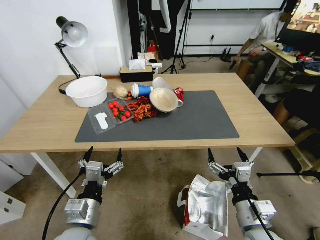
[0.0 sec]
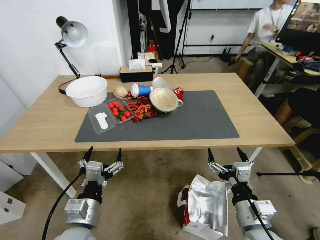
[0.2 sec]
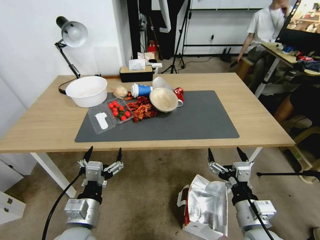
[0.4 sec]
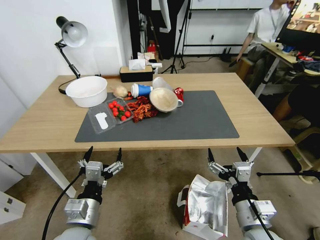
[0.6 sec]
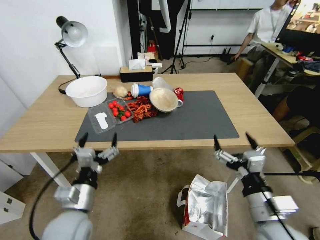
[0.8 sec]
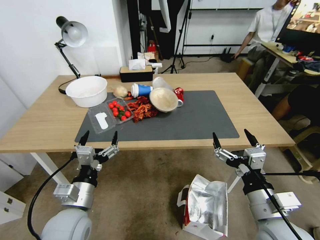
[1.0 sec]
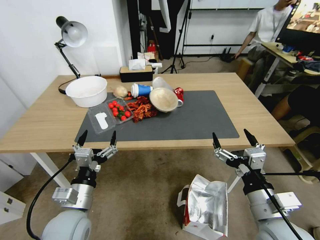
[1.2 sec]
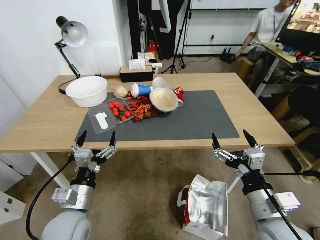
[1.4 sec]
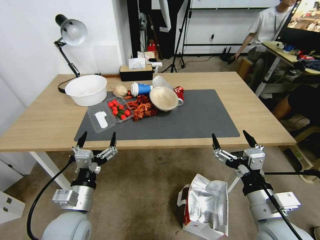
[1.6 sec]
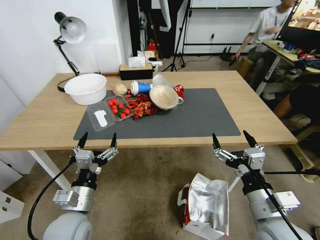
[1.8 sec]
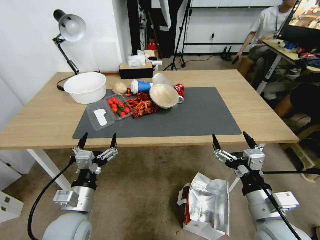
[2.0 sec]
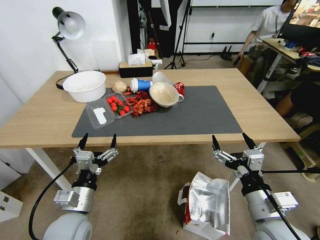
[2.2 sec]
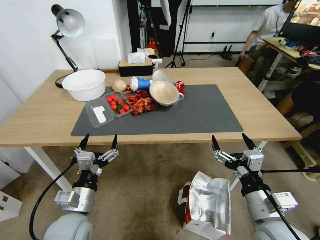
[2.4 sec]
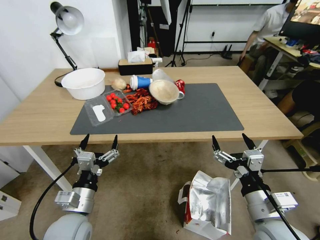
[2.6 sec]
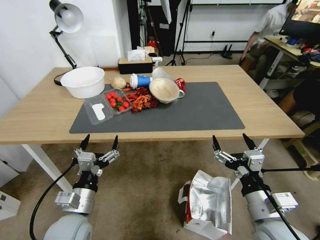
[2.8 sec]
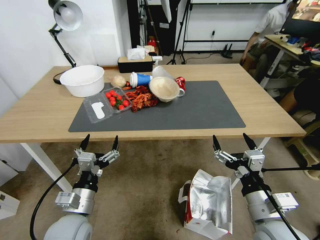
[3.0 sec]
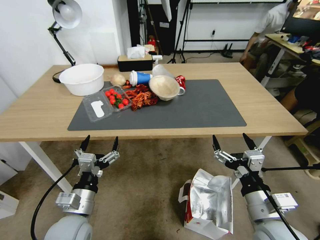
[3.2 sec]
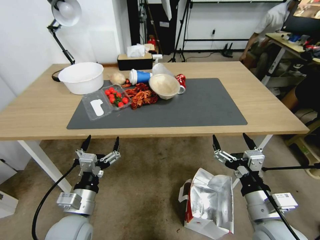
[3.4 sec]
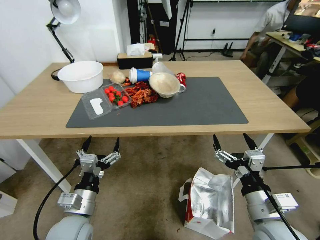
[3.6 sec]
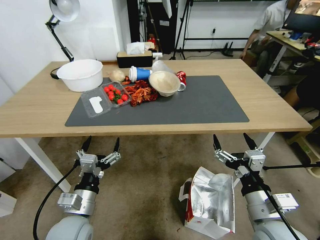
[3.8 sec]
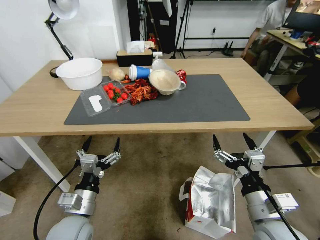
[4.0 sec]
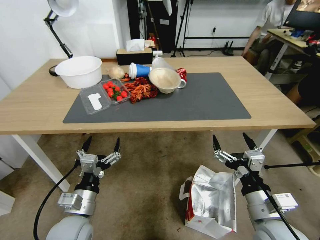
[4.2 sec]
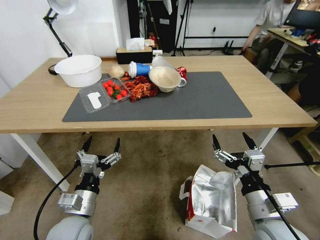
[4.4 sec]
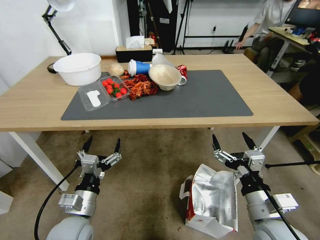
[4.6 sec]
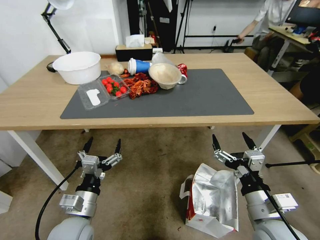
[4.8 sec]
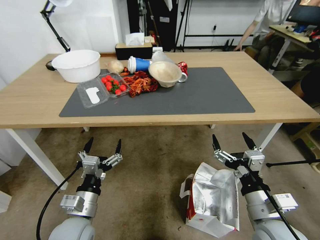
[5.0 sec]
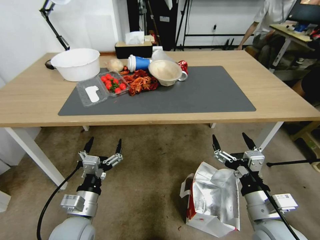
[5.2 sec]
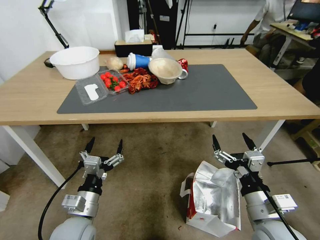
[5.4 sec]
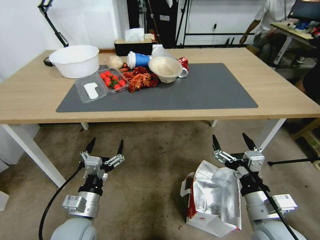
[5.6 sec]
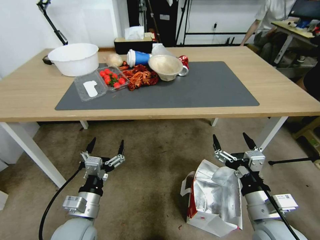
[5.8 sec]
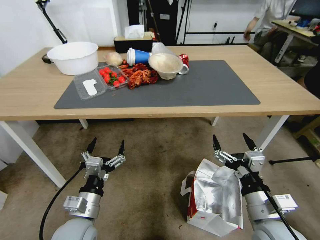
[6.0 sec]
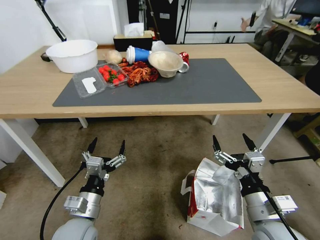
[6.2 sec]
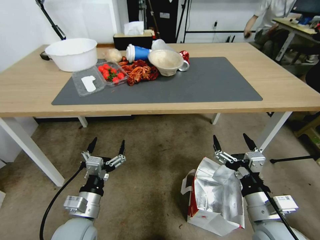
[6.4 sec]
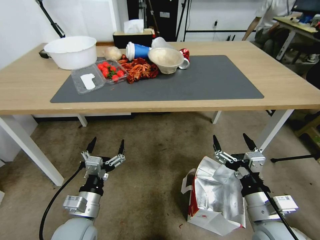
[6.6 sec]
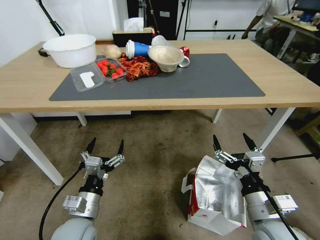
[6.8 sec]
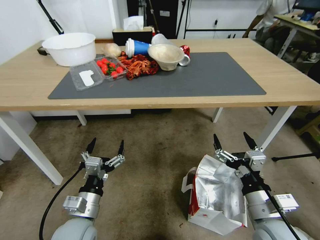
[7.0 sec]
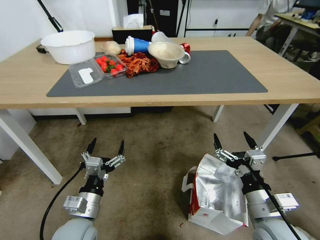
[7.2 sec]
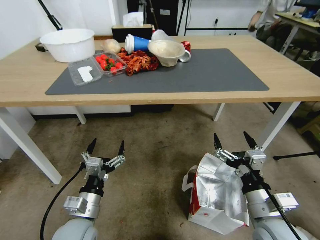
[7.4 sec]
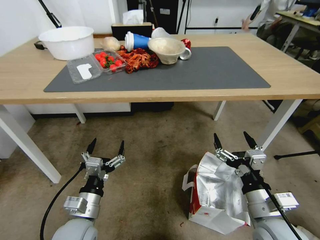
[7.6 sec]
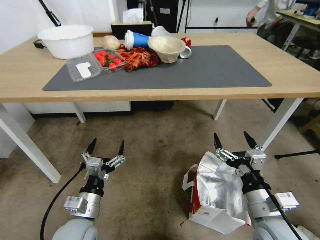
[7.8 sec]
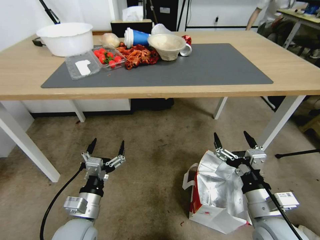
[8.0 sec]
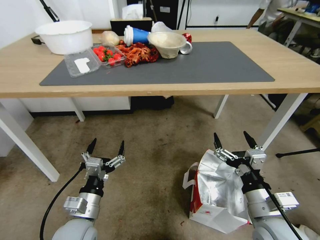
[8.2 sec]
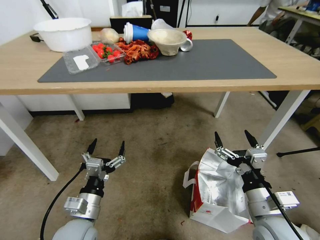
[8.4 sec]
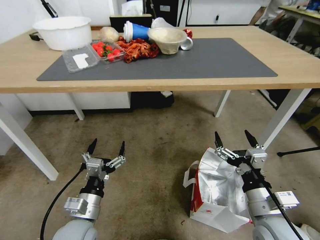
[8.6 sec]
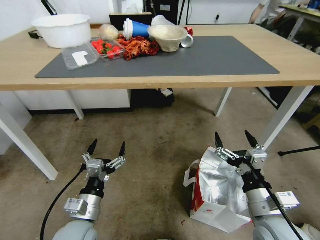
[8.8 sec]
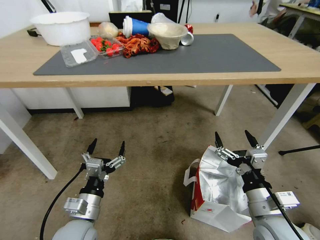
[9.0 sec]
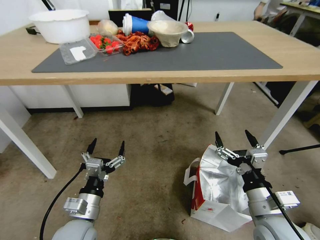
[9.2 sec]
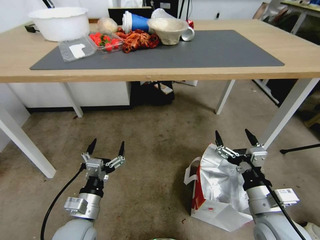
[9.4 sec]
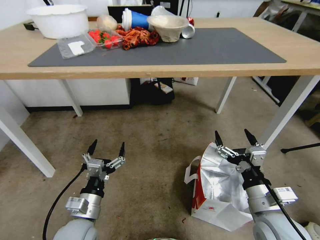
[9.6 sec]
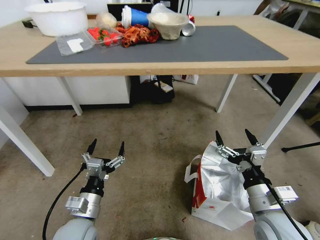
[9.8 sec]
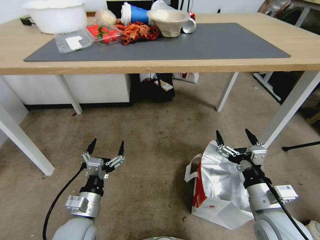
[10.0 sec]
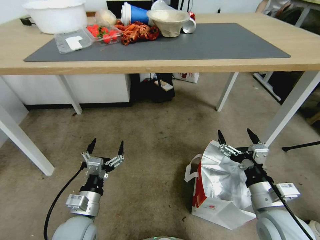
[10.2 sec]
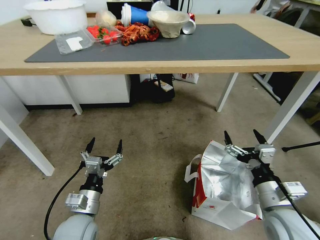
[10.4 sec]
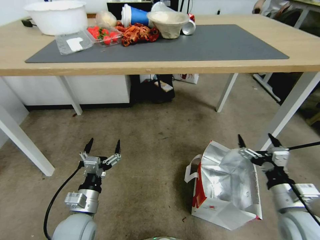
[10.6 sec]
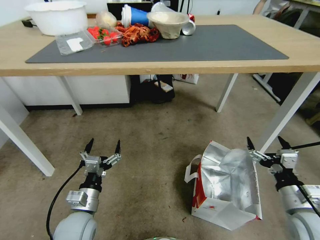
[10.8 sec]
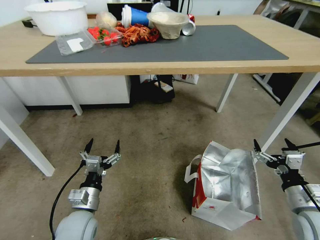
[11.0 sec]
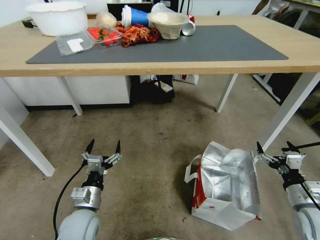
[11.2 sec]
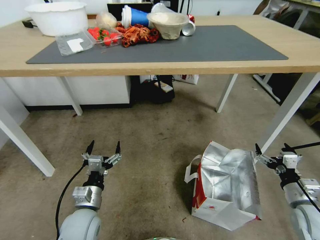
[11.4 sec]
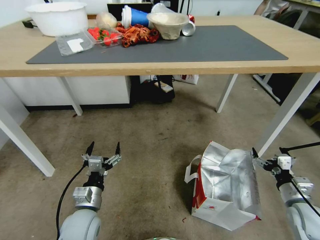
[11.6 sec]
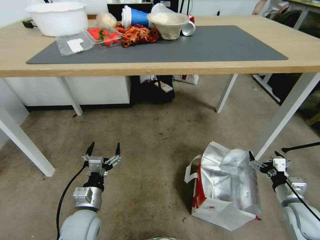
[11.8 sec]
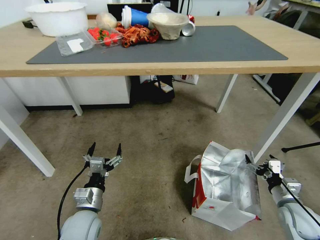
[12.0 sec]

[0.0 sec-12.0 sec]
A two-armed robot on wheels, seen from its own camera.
Task of the whole recording: Pick up the food delivery bag from the floor and place it on the table.
10.4 sec to 12.0 sec: The right gripper heads to the right and downward, covering some 20 cm.

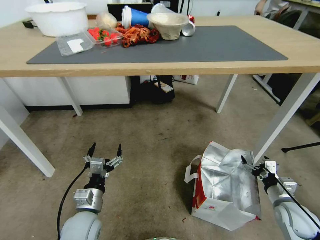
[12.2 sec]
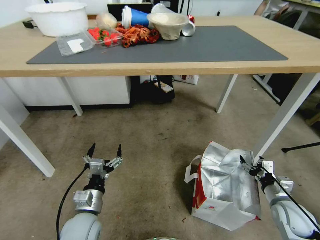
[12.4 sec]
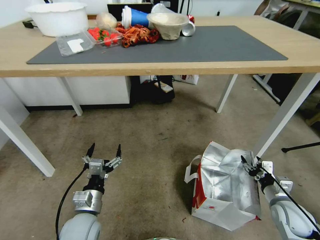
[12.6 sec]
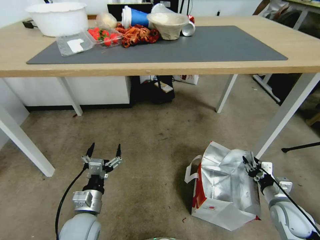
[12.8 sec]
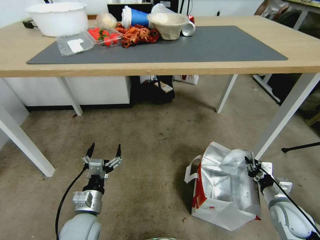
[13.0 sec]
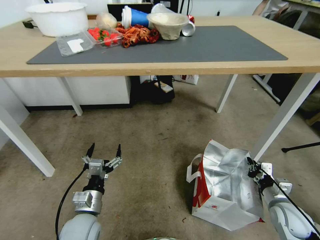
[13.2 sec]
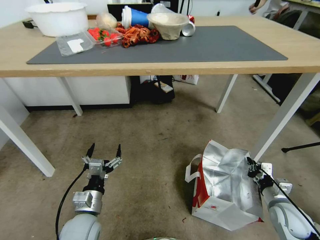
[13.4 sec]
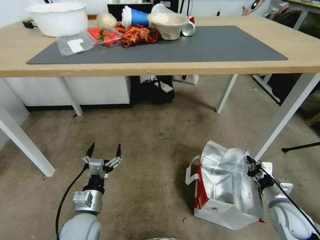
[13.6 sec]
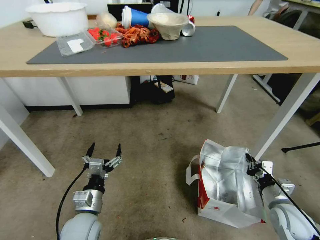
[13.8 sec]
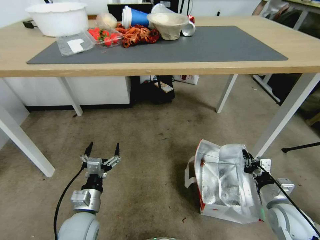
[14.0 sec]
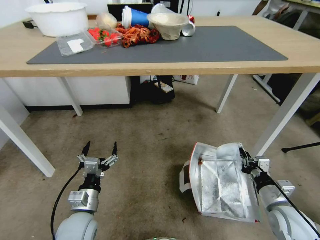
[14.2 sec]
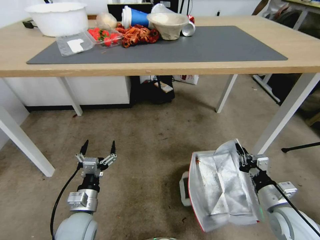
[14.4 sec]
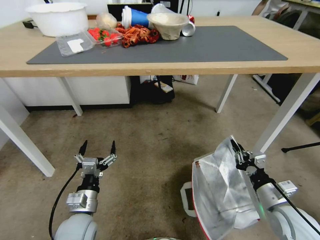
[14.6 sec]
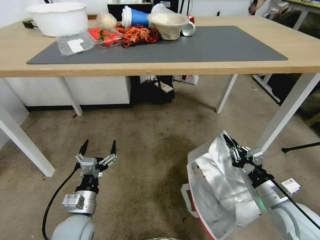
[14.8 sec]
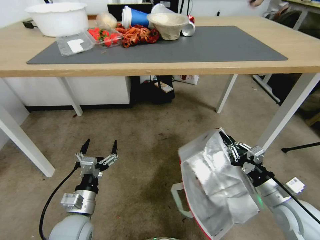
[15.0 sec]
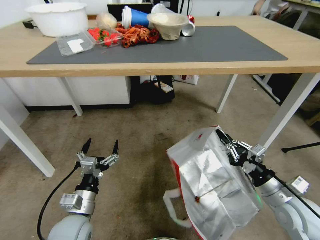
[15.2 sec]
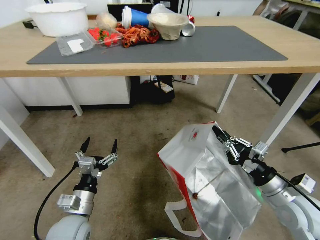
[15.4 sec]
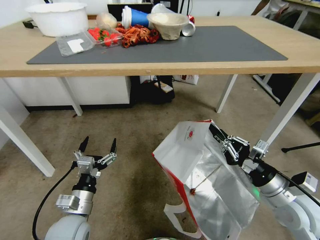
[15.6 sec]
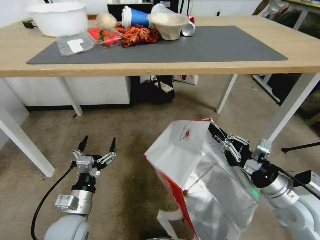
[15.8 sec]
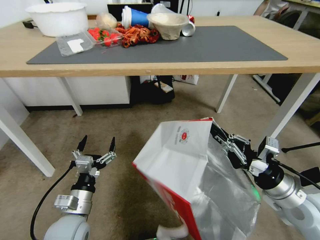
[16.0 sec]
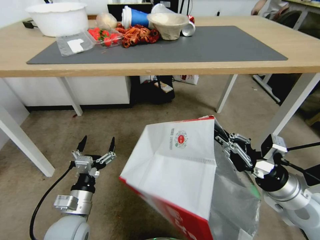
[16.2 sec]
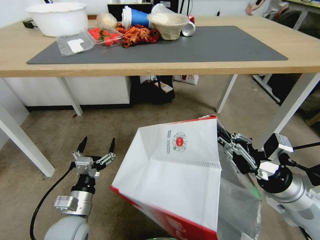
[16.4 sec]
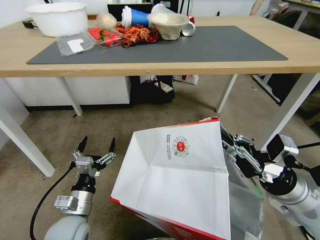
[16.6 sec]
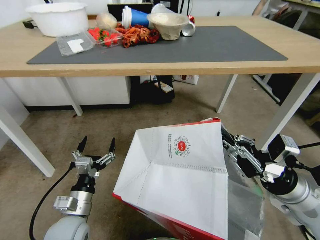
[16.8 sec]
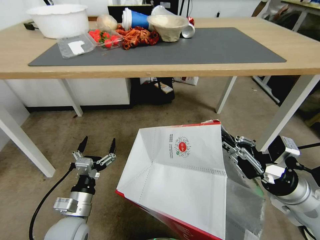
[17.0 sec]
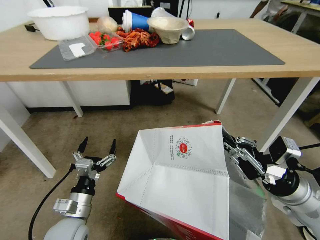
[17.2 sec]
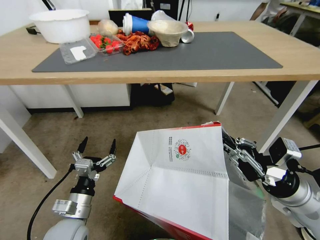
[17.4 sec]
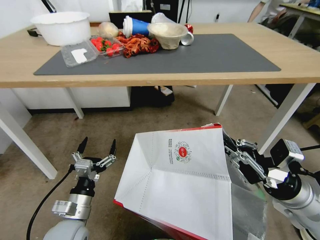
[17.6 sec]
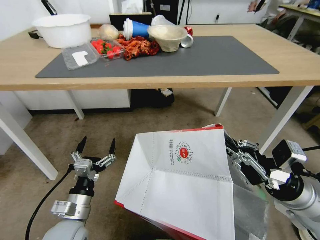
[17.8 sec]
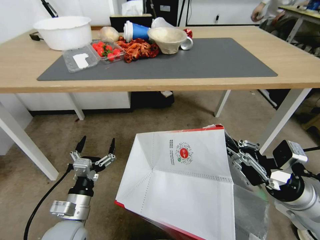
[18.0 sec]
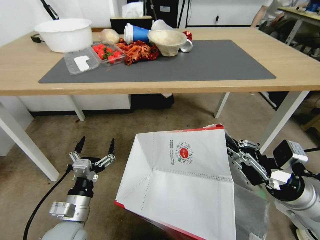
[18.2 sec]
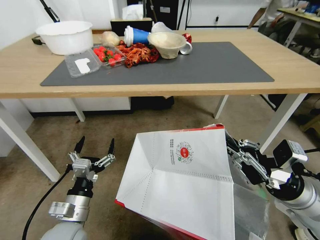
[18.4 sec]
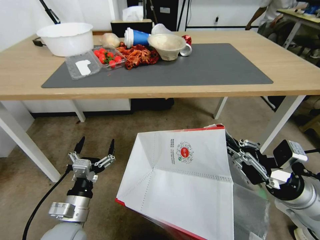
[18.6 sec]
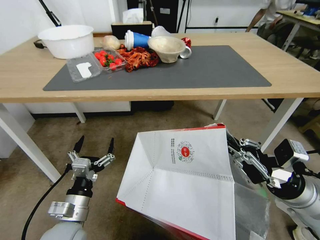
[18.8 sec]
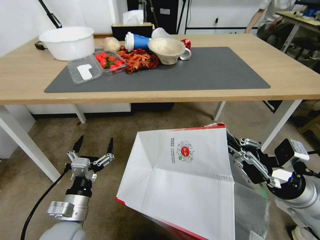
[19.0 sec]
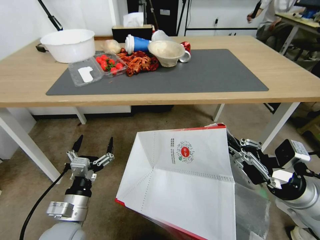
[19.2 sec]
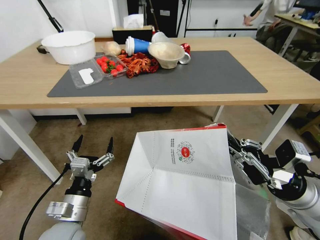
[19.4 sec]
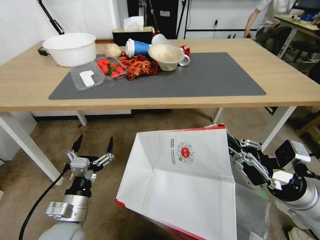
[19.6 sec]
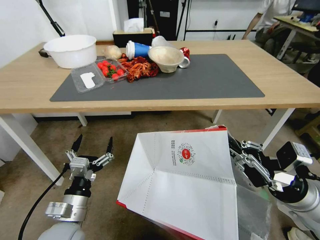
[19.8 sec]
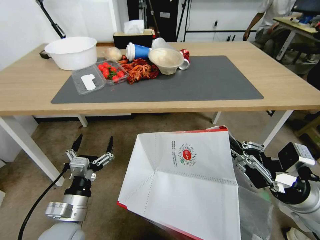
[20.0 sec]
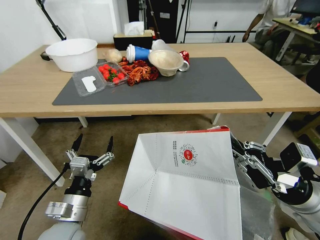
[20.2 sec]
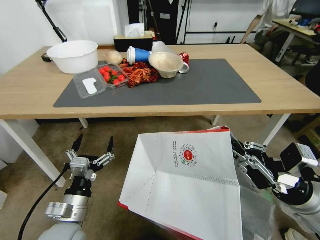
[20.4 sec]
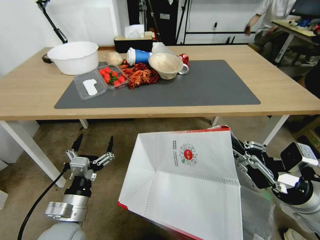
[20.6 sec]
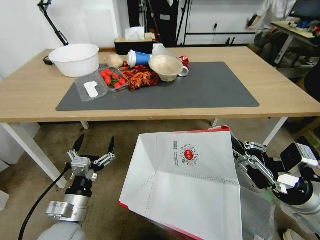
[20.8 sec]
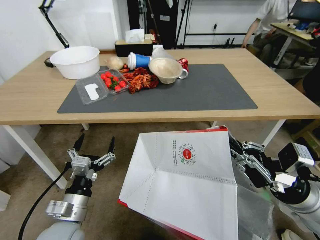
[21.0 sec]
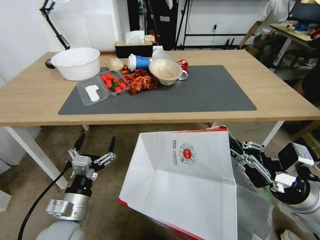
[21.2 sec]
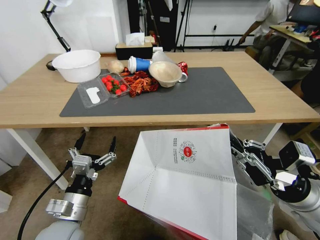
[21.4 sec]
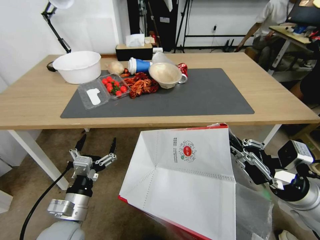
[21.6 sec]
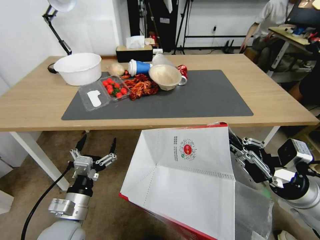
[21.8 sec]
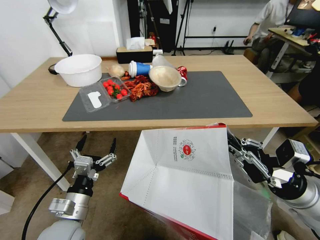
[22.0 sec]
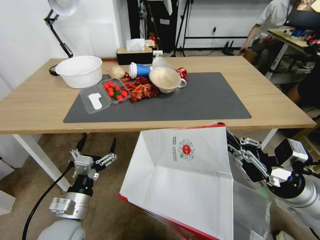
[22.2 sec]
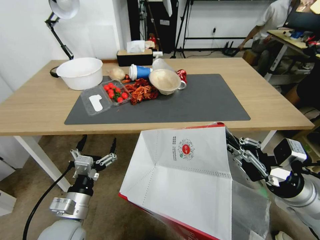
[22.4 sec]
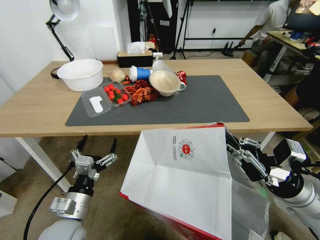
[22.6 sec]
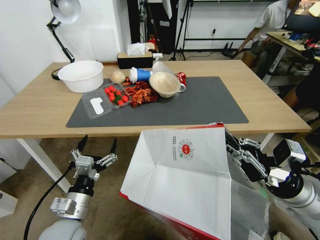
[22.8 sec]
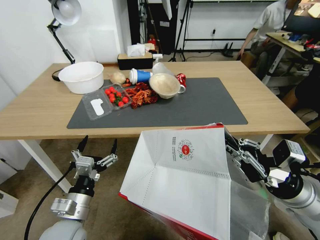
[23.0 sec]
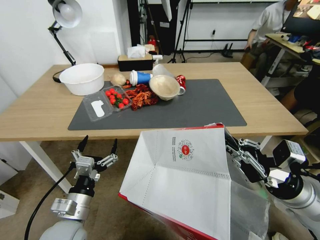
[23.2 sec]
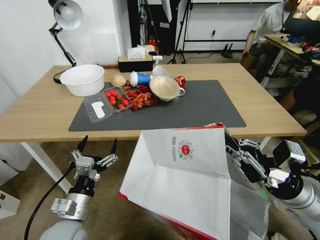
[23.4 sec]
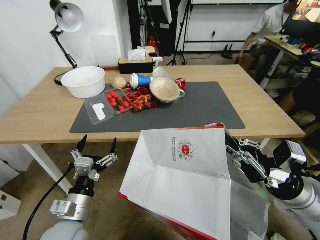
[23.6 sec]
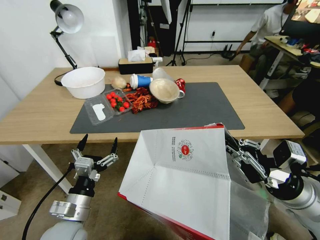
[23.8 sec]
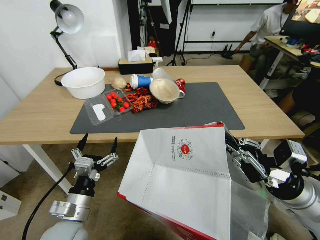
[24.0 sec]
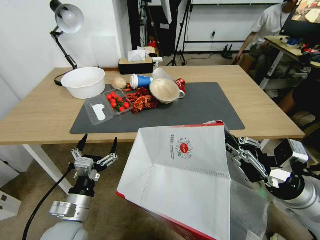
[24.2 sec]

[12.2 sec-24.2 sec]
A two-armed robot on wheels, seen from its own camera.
Task of the whole recording: Pick up the food delivery bag from the floor and place it on the table.
12.2 sec to 13.8 sec: The right gripper closes up.
13.8 sec to 15.2 sec: The right gripper heads upward, covering about 10 cm.
15.2 sec to 16.6 sec: The right gripper moves upward, some 10 cm.
